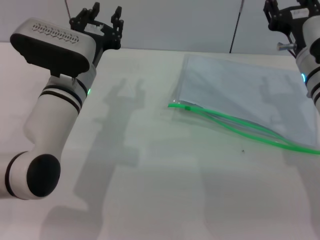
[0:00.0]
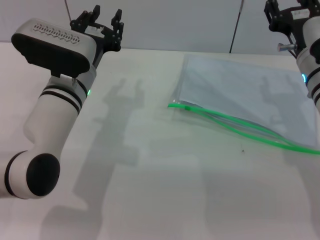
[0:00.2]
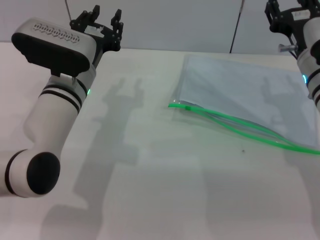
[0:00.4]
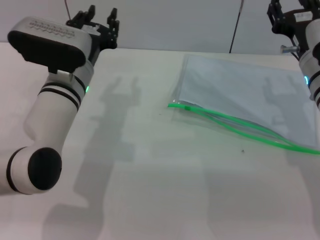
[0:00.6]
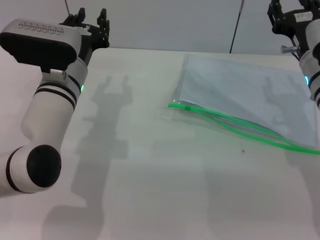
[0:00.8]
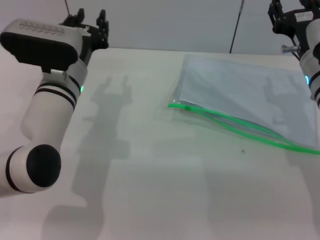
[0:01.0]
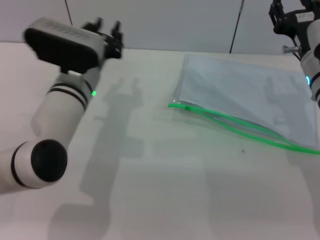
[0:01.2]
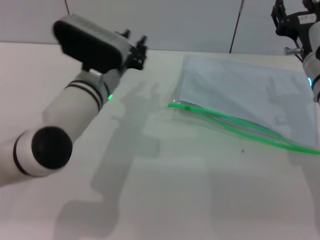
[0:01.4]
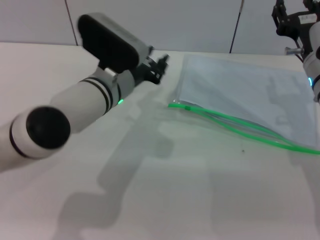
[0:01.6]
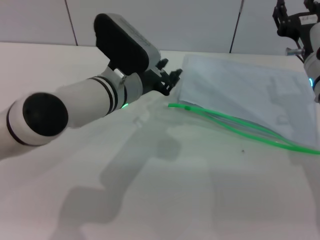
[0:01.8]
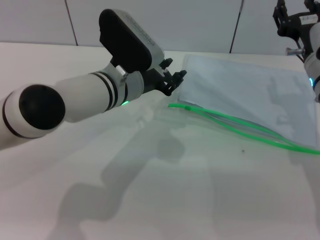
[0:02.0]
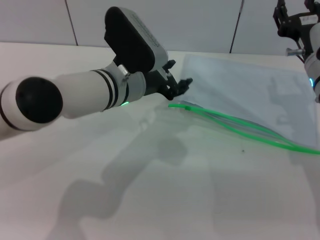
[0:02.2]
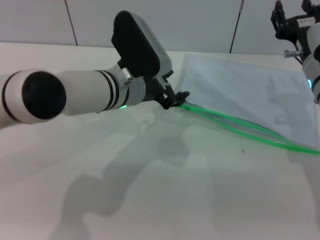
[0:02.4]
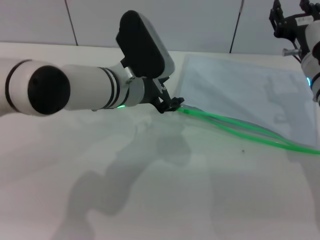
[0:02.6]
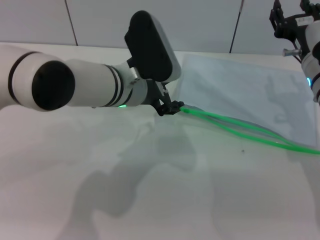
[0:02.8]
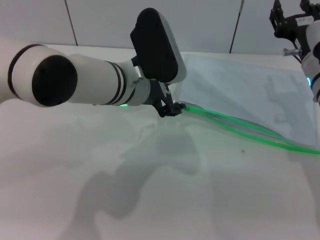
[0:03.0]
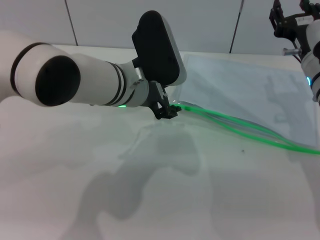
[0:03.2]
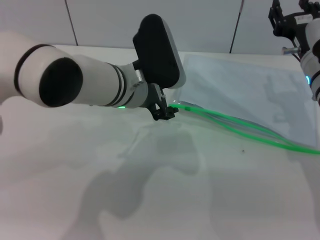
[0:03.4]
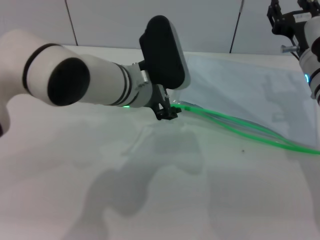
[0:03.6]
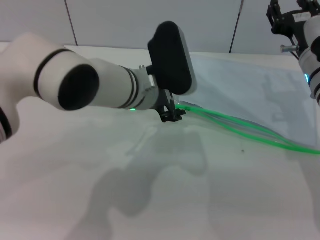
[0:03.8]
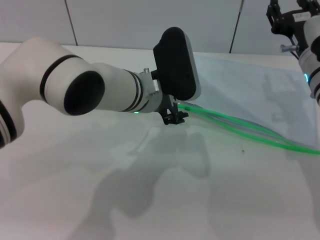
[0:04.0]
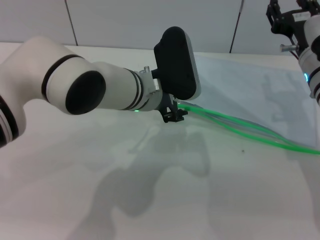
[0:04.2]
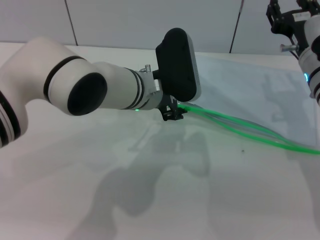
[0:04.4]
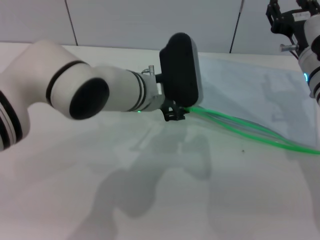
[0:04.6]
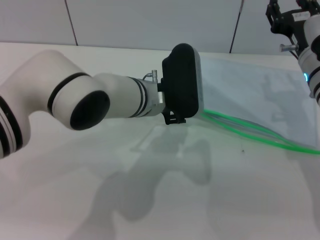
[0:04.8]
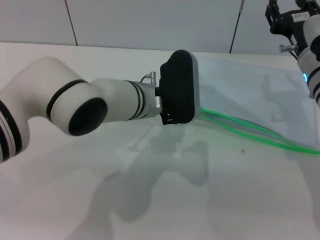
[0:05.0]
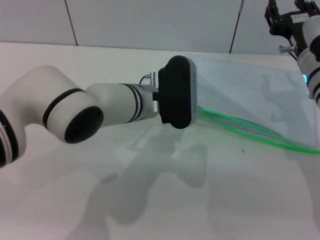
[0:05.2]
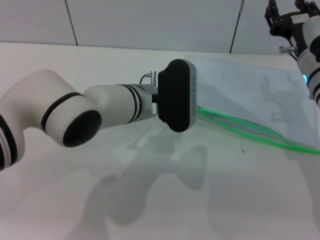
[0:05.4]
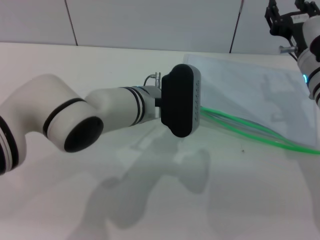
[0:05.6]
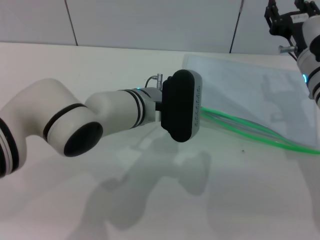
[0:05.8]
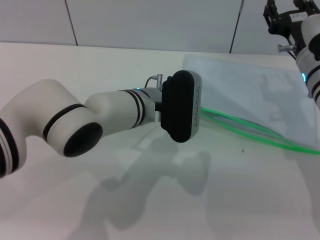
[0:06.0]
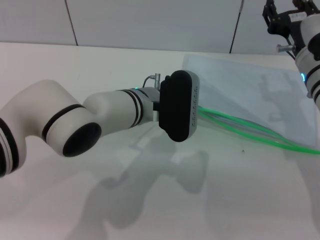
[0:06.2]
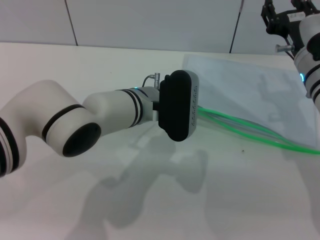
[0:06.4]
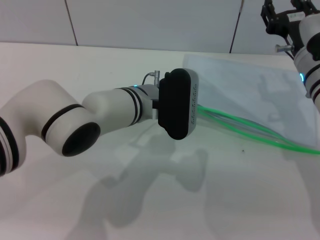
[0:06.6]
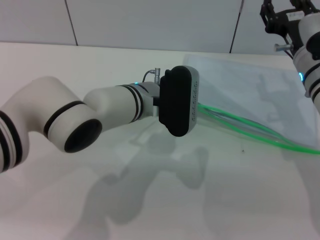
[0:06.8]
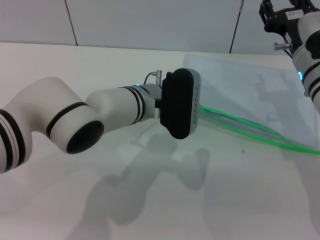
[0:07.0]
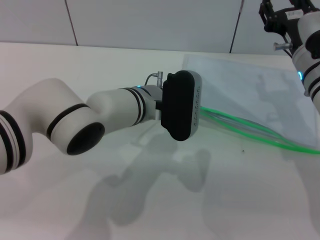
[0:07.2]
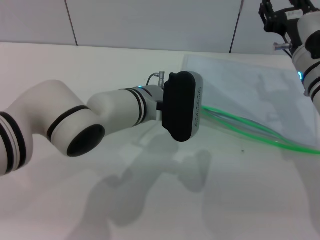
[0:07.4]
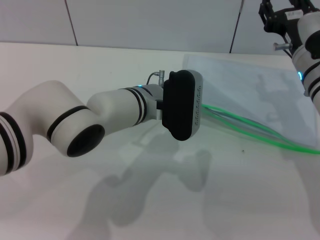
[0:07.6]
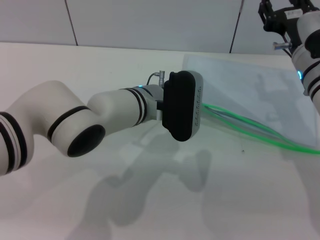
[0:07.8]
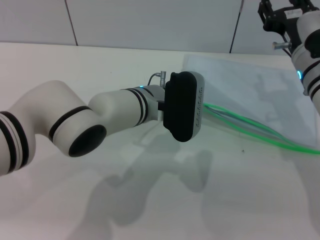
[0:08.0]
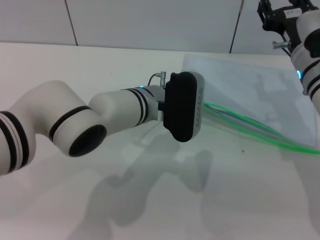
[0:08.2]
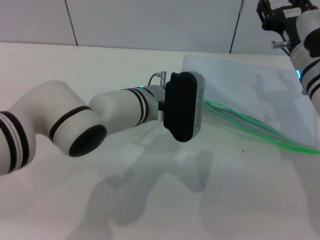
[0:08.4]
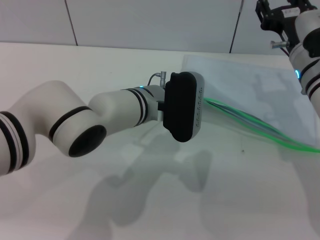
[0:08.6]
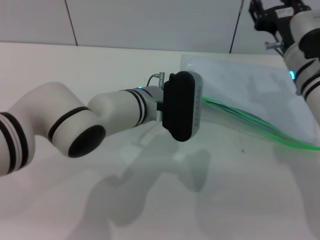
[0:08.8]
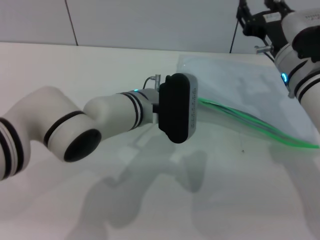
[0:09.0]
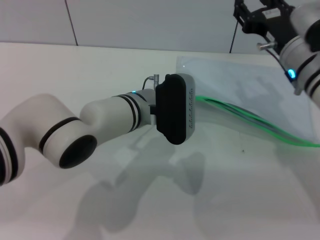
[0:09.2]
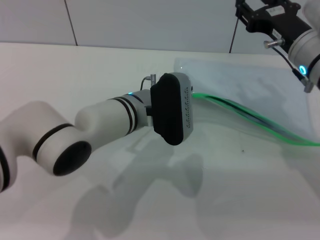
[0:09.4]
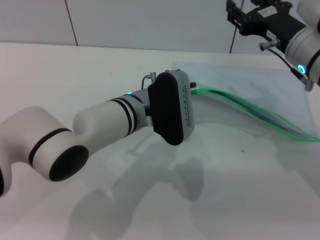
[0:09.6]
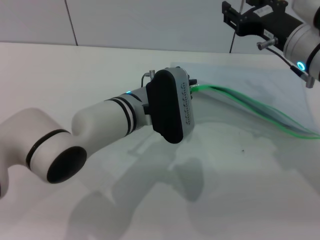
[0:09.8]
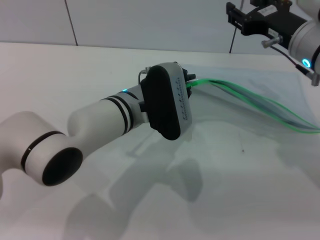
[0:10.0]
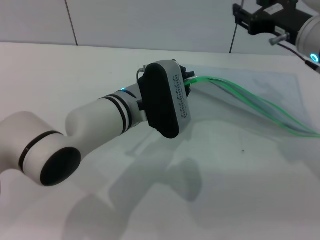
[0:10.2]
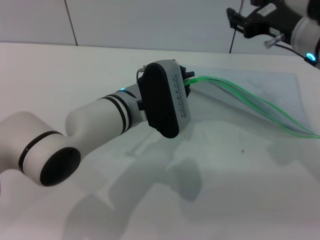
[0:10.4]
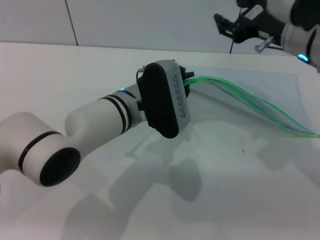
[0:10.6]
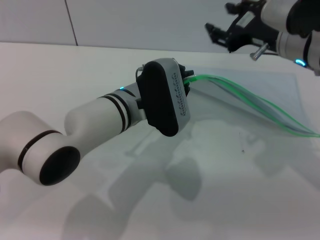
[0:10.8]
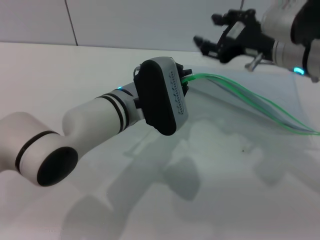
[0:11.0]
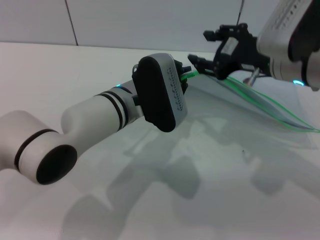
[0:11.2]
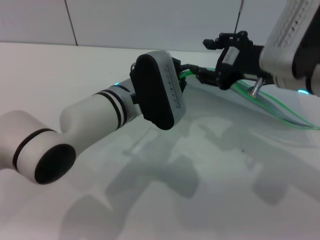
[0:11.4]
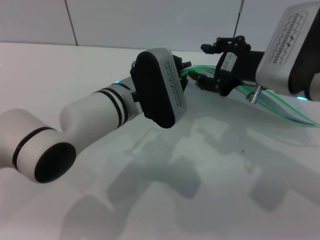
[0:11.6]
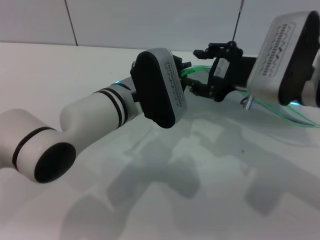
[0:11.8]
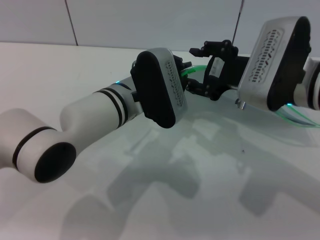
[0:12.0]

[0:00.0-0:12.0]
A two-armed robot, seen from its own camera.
Step, 0:00.0 to 0:10.2: Pick up the transparent plastic bag with the left gripper.
0:01.6 to 0:03.0: The left gripper opens its fingers.
0:03.0 to 0:04.4: The grippers make only small movements.
0:06.0 to 0:07.6: Both grippers stay about where they are.
0:07.6 to 0:09.0: The left gripper closes its fingers.
0:09.0 to 0:10.4: The right gripper moves upward, approximately 5 cm.
0:10.4 to 0:12.0: The right gripper travels backward by some 5 cm.

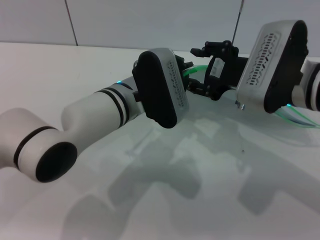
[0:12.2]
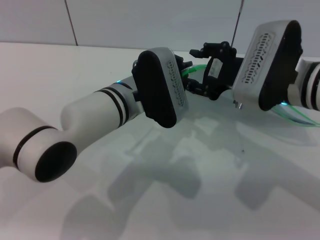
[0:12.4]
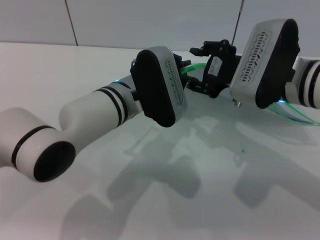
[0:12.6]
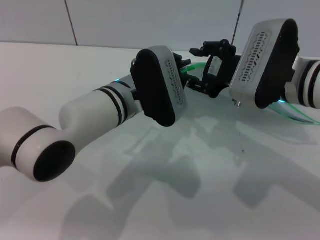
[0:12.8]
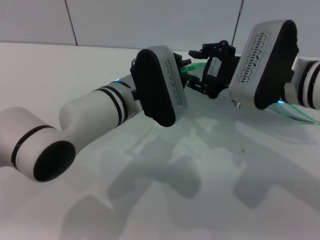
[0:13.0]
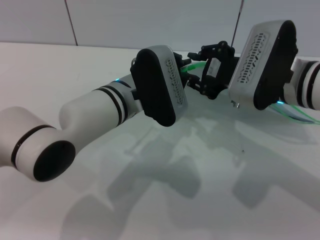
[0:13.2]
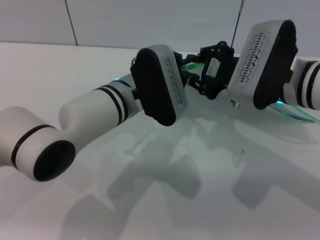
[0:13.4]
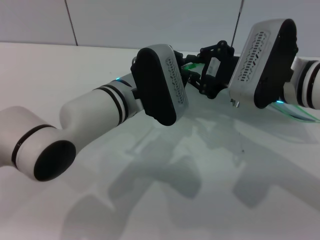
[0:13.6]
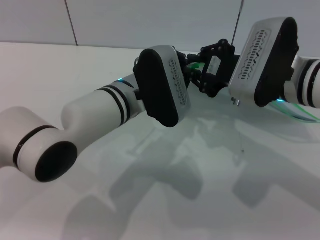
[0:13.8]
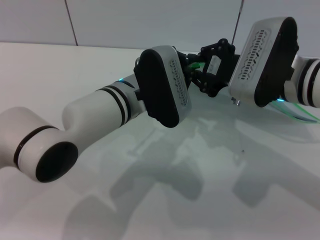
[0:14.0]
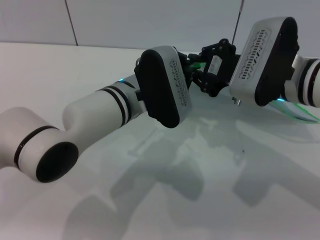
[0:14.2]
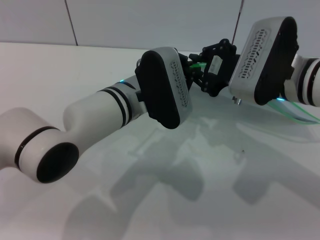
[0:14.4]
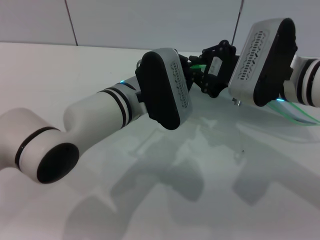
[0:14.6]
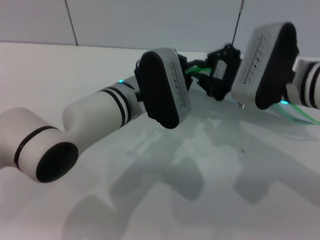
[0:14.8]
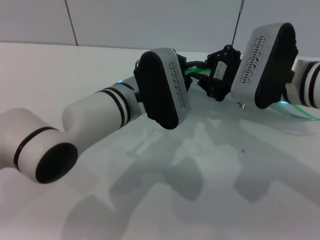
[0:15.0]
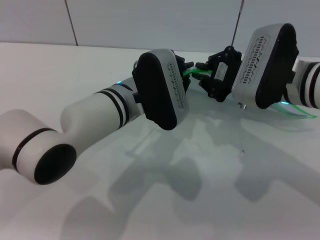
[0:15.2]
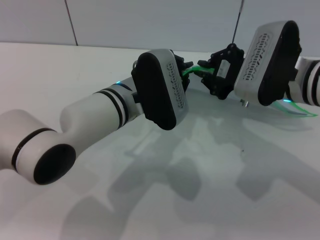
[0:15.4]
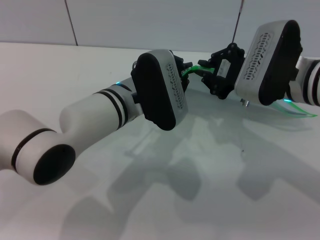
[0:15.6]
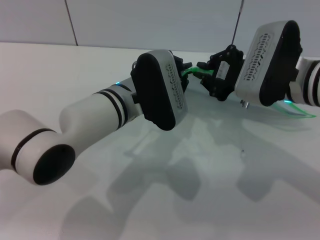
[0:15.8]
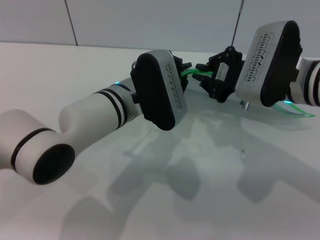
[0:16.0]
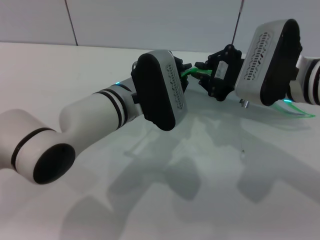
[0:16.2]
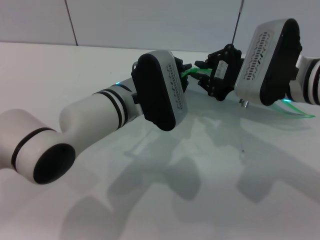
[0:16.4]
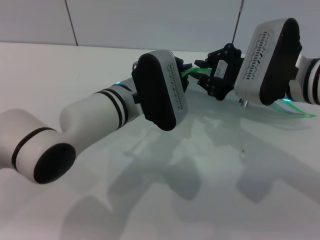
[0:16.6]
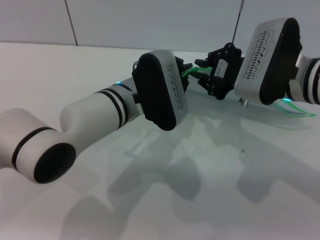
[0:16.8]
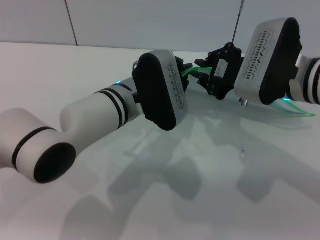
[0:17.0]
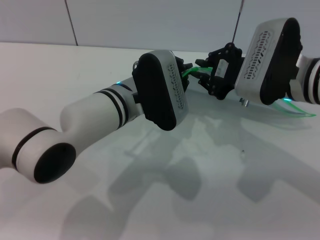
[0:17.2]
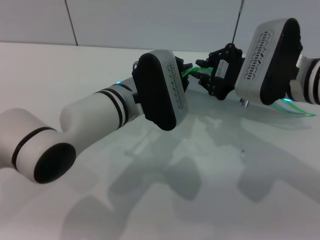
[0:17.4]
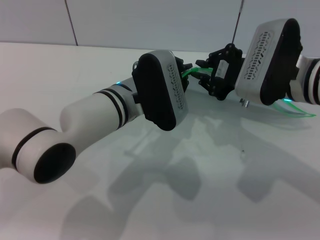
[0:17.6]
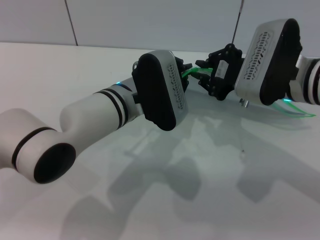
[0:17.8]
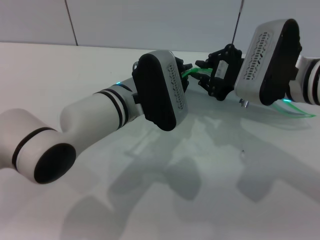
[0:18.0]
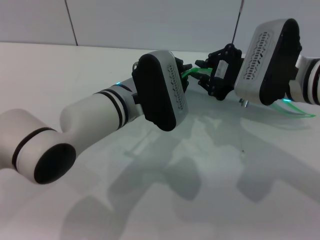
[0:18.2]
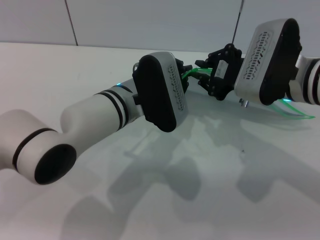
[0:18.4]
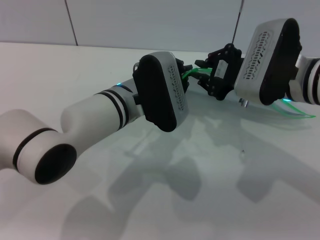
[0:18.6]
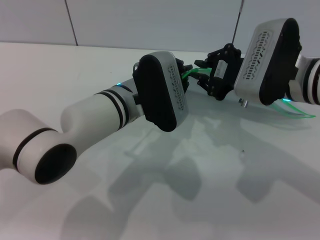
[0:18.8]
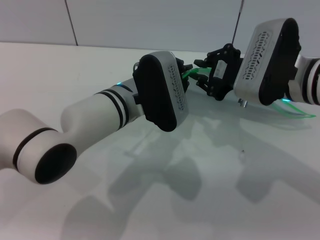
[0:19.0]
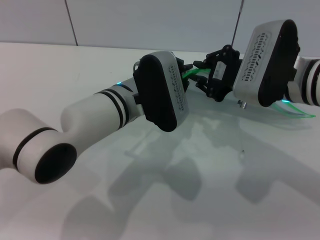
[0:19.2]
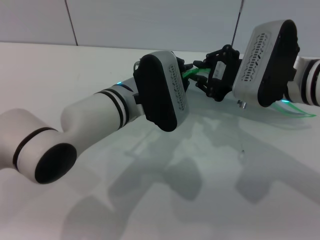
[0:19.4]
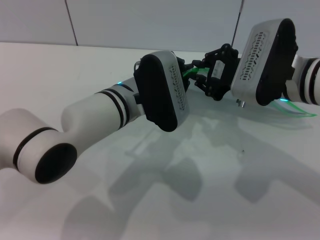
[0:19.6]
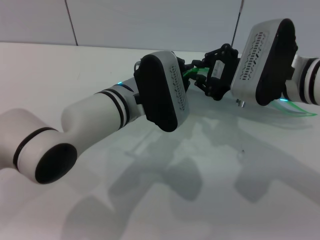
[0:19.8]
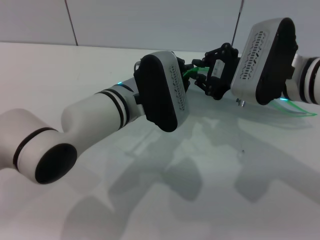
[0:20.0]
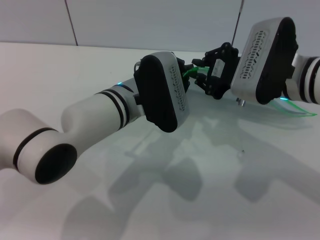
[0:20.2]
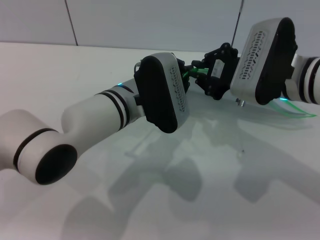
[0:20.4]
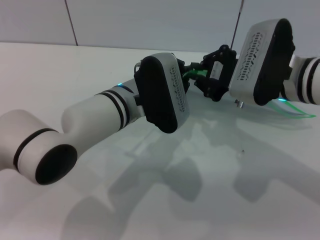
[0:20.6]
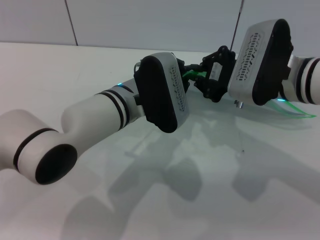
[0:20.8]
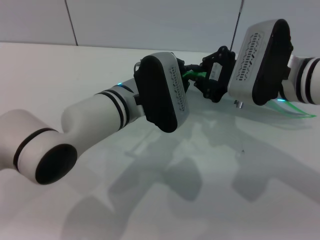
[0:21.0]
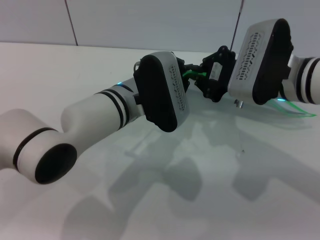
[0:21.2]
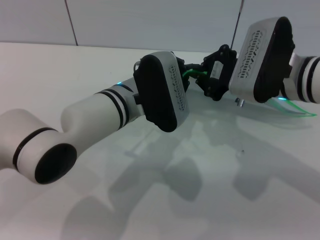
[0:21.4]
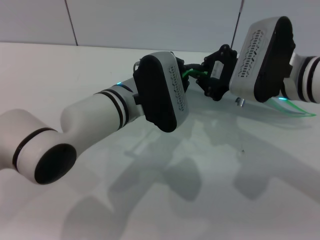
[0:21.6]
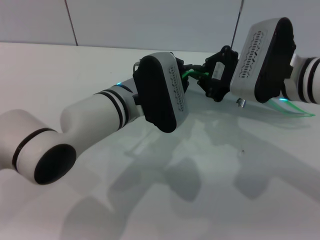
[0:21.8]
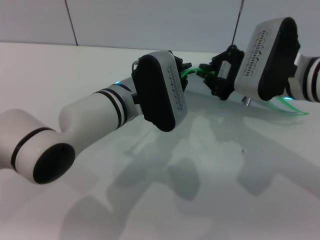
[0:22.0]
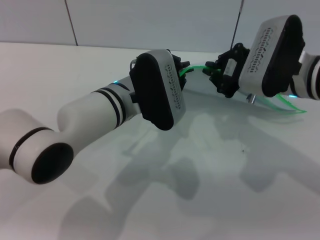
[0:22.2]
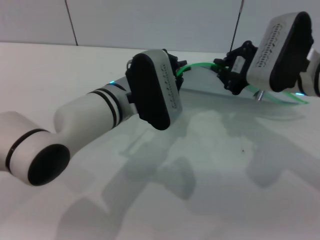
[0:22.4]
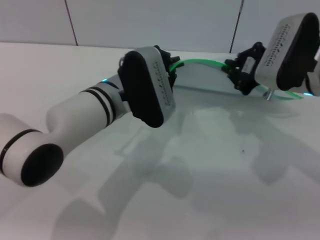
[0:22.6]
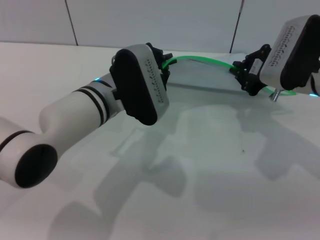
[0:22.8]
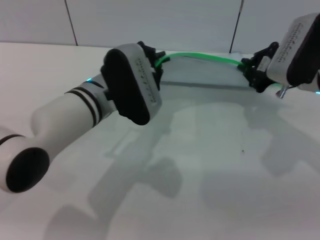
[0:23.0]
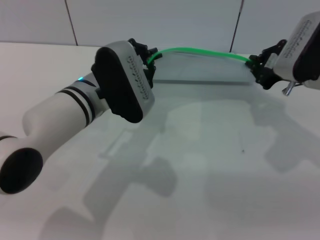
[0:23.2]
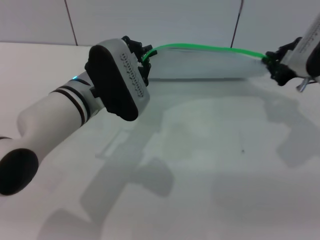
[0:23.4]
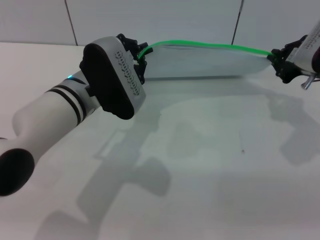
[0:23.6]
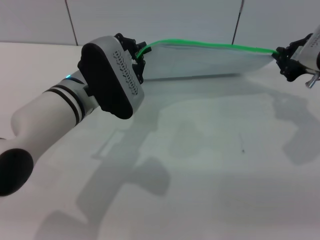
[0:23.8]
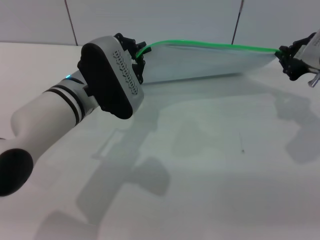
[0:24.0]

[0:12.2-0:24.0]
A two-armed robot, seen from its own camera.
0:12.2 to 0:13.6: Both grippers stay about where they are.
0:13.6 to 0:15.2: The grippers stay close to where they were, moving slightly.
0:15.2 to 0:21.0: The two grippers keep their place.
0:22.6 to 0:24.0: The right gripper is displaced to the right by about 5 cm.
